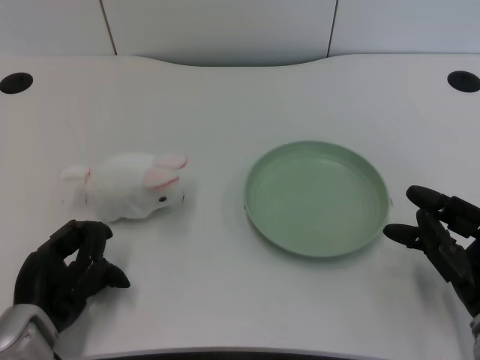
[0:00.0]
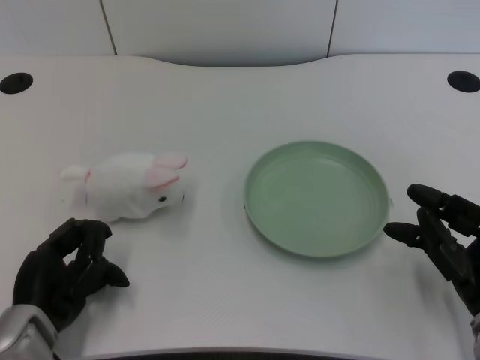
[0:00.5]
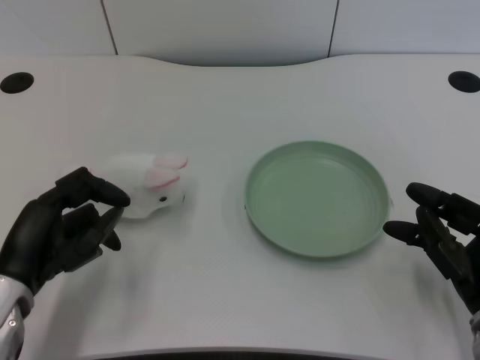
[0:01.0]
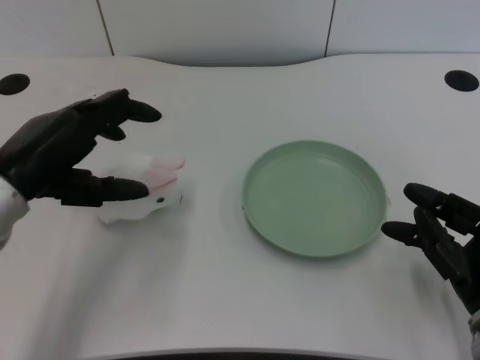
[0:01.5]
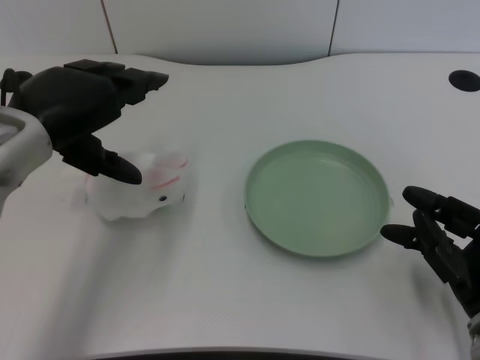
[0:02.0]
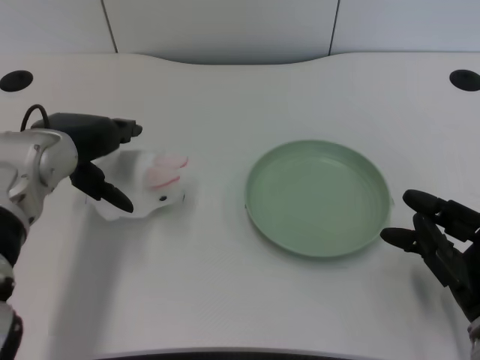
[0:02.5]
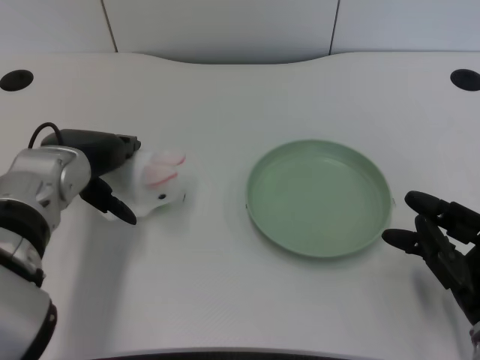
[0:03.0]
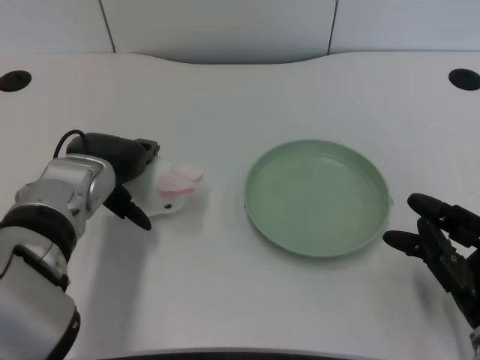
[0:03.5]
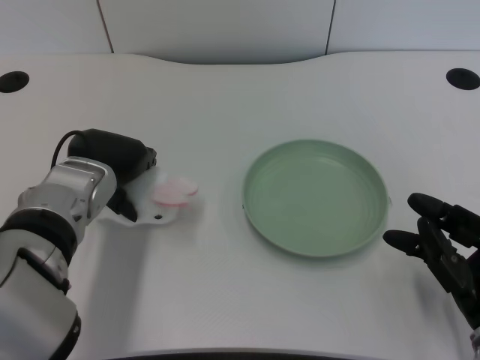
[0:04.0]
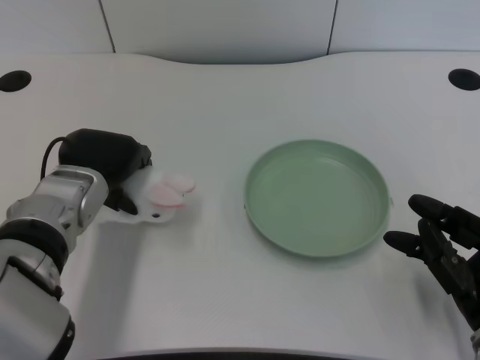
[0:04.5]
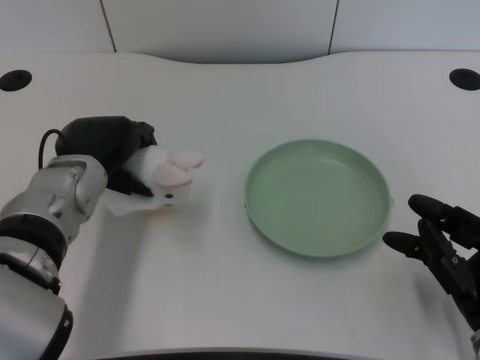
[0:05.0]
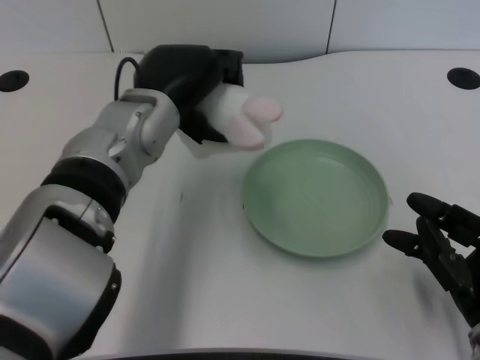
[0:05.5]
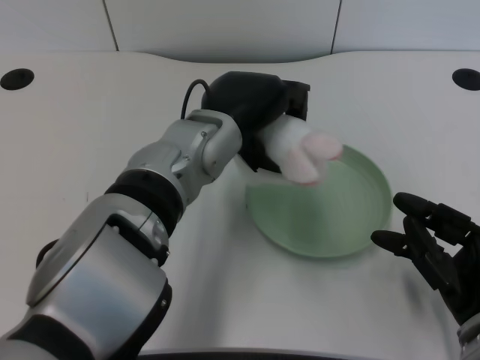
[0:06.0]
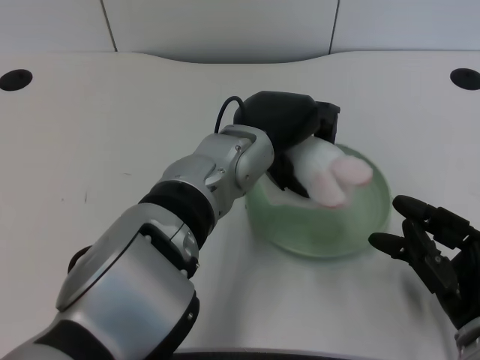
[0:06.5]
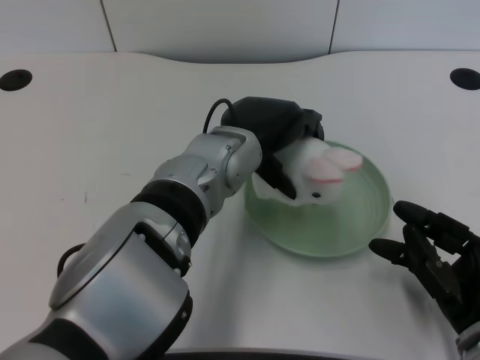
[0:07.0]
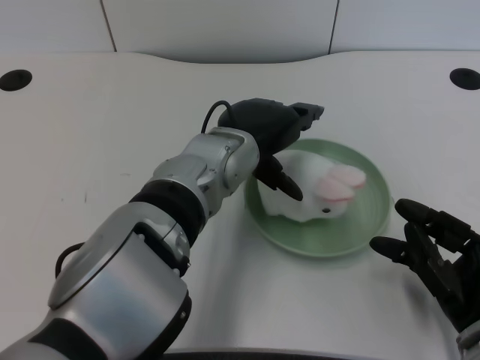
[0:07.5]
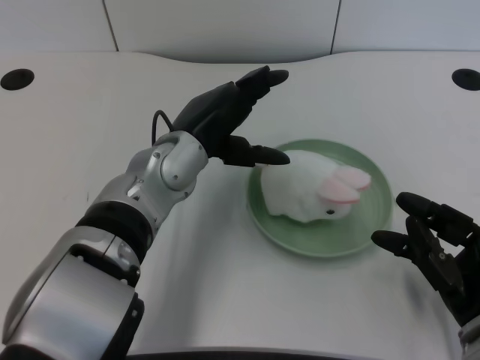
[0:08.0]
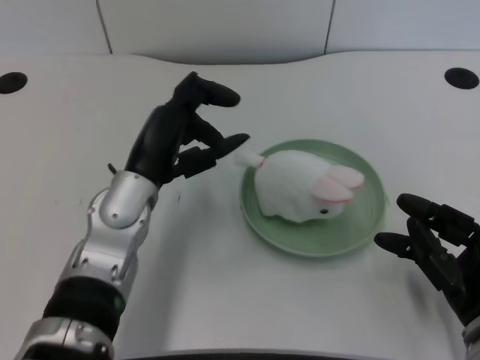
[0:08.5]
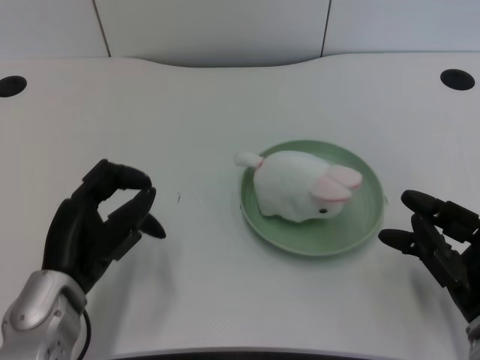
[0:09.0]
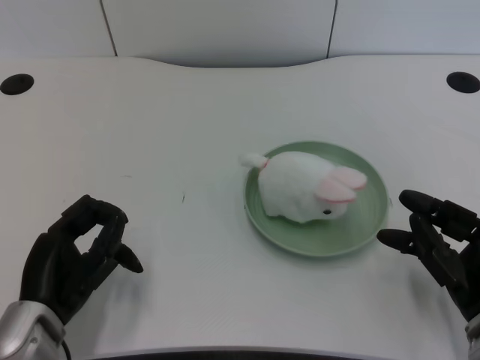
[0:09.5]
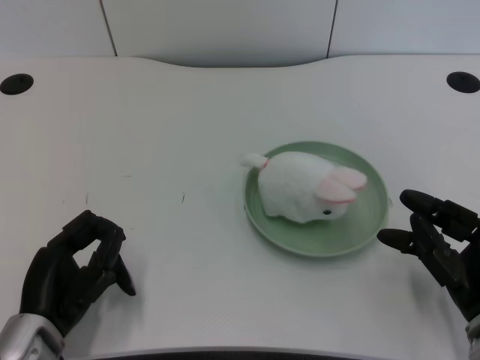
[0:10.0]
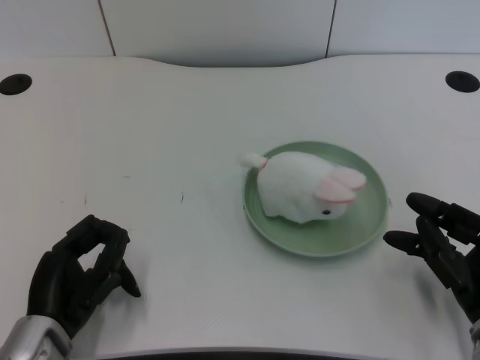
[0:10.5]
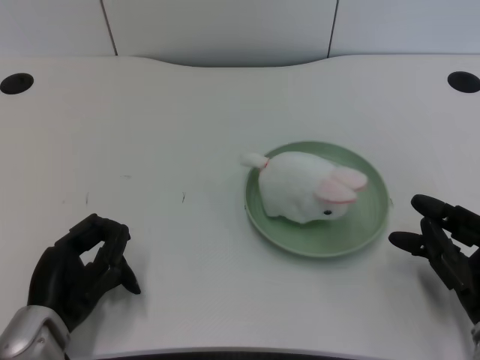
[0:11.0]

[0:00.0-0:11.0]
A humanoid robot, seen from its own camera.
Task of the whole recording: pick up the rabbit doll from the table and place it on the plate.
Step, 0:01.0 to 0:04.5: Grasp the rabbit doll with the left gripper.
Step, 0:05.0 to 0:07.0: Place the rabbit doll into the plate with the left gripper.
0:02.0 to 0:03.5: The left hand moves downward, about 10 cm.
0:03.5 to 0:05.5: The left hand shifts about 10 cm to the right and upward.
0:05.5 to 0:07.5: The left hand shifts approximately 5 cm to the right.
0:07.5 to 0:09.0: The left hand heads to the left, backward and downward, covering some 20 cm.
0:09.0 to 0:11.0: The hands move only a little.

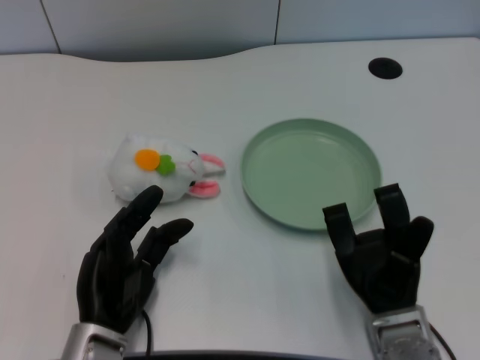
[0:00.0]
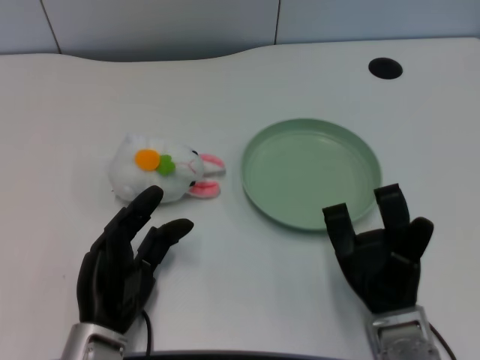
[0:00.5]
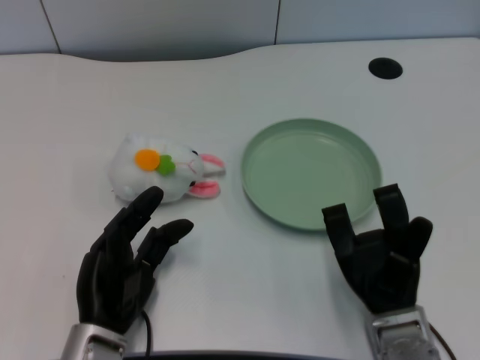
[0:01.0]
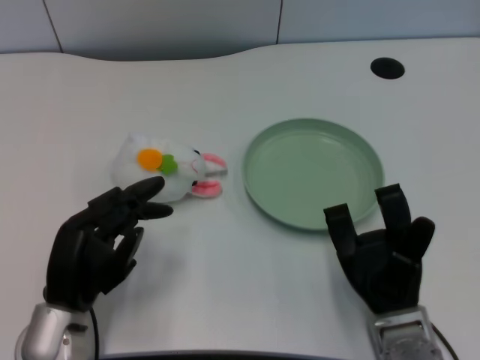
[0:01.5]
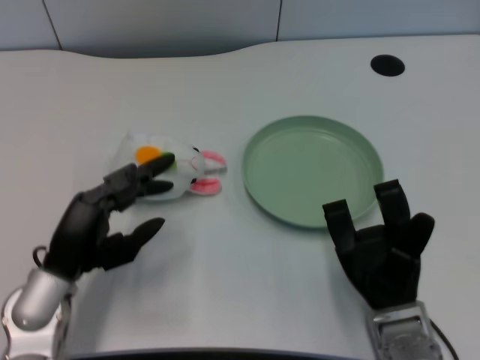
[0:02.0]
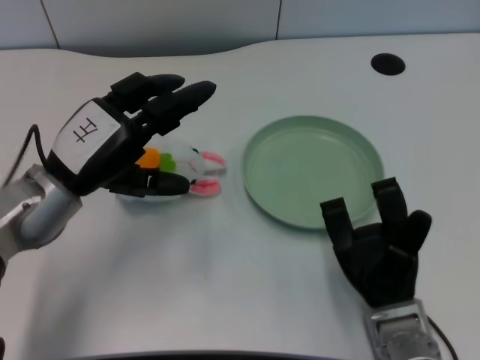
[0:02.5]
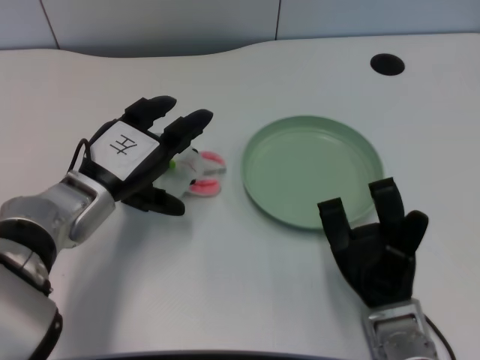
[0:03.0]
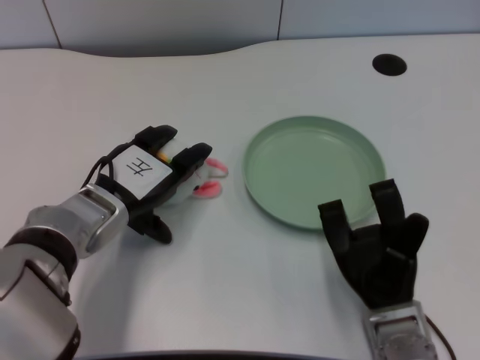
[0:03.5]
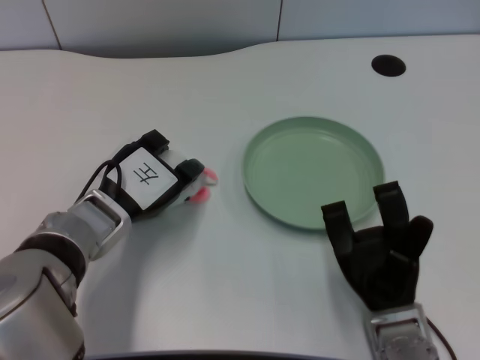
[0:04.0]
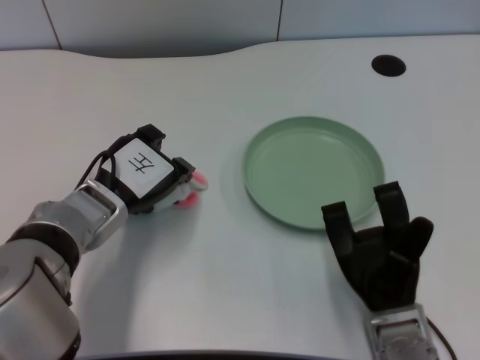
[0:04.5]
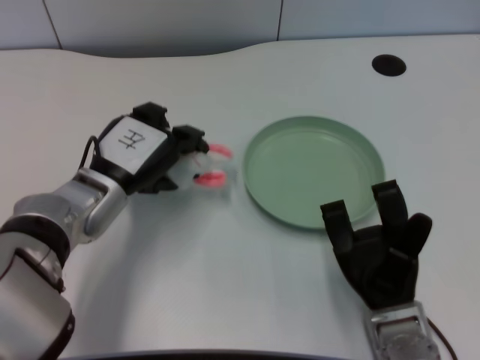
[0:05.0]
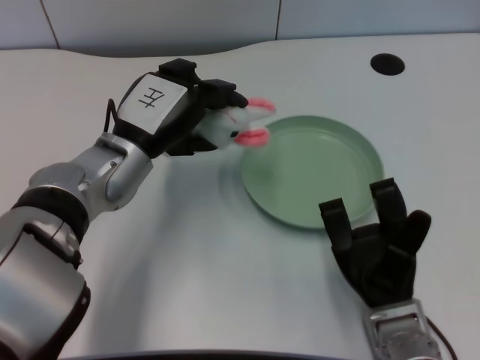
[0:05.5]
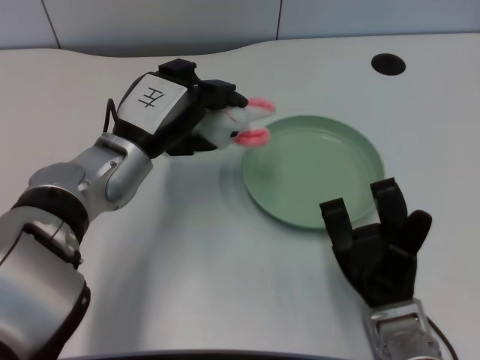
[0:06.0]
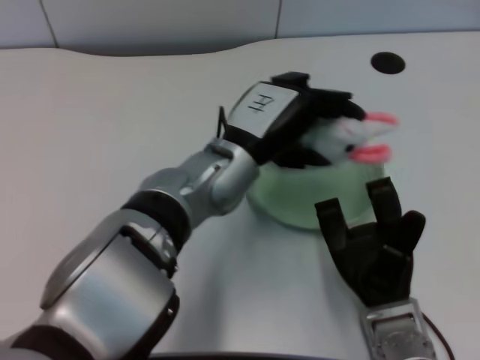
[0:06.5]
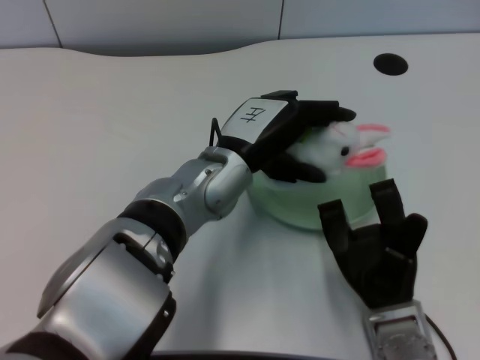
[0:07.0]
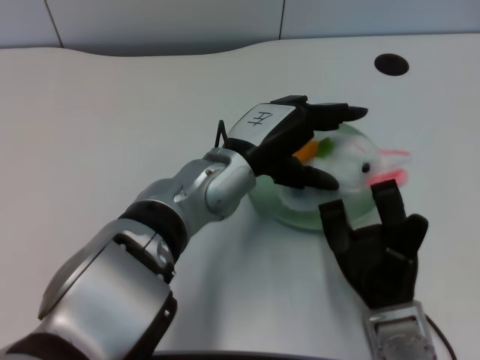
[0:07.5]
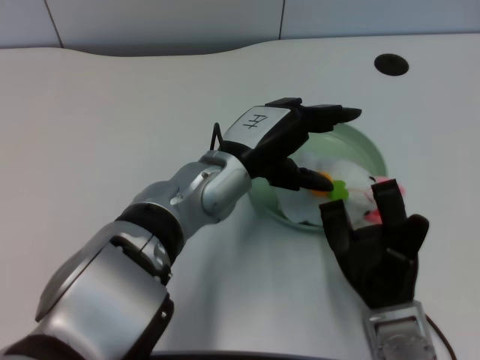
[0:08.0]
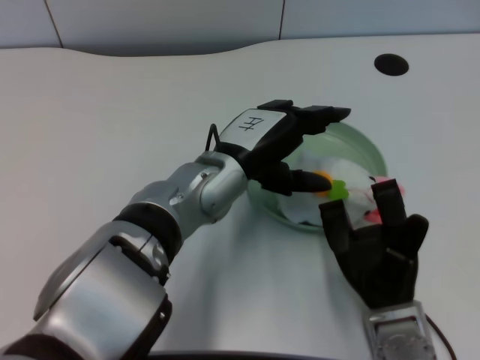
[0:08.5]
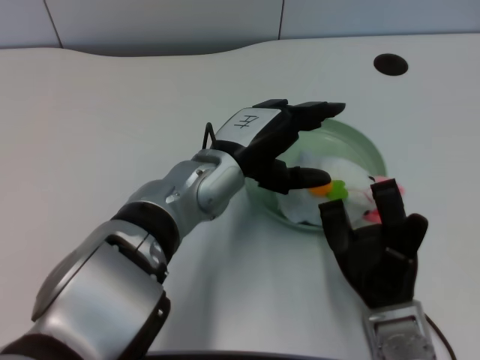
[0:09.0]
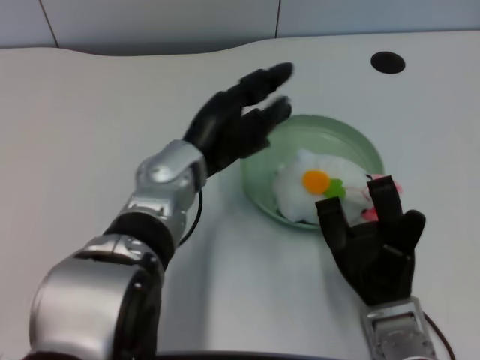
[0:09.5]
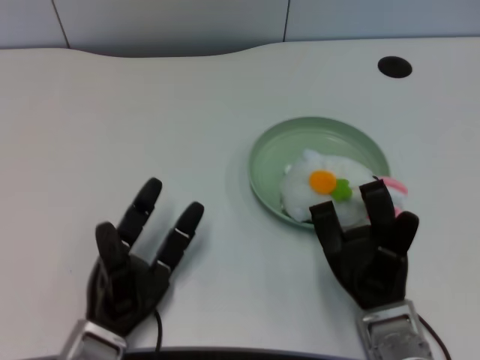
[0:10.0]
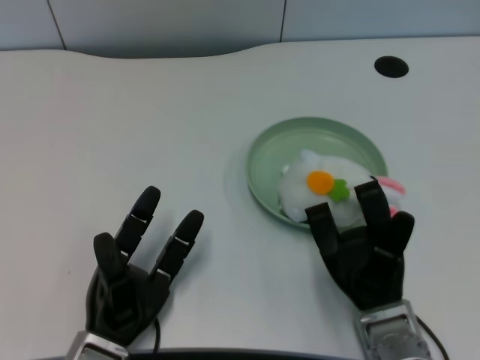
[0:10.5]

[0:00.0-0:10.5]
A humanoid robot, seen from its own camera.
Task of the whole recording: pick up the rabbit doll from the table and place it on the plate.
Step, 0:01.5 to 0:04.5: Grasp the rabbit doll with the left gripper.
Step, 0:05.5 to 0:07.5: Place the rabbit doll into the plate with the left gripper.
0:02.0 to 0:04.0: The left hand travels forward by about 5 cm.
0:04.0 to 0:06.5: The left hand heads to the right and upward, covering some 15 cm.
0:06.5 to 0:08.5: The hands make only small movements.
0:08.5 to 0:10.5: The left hand shifts some 20 cm downward, backward and to the left.
